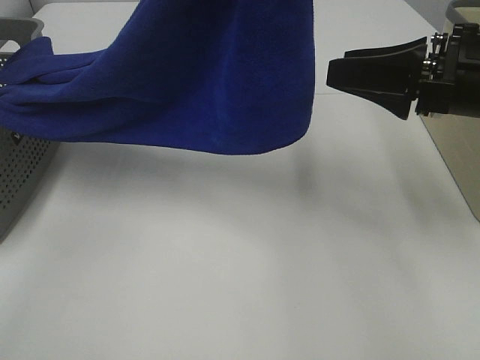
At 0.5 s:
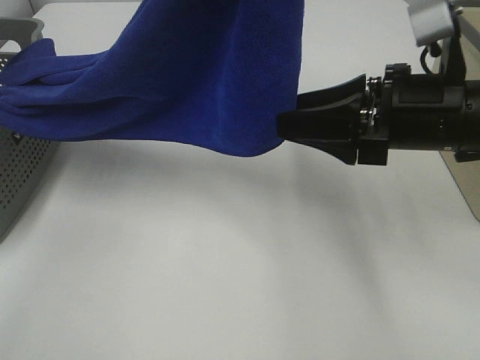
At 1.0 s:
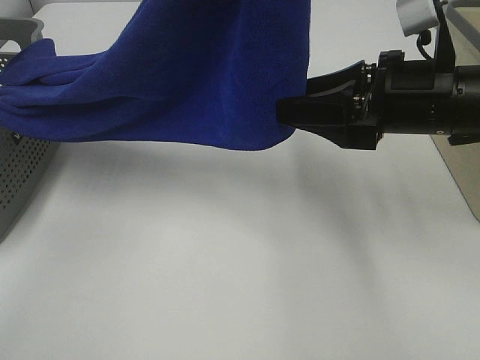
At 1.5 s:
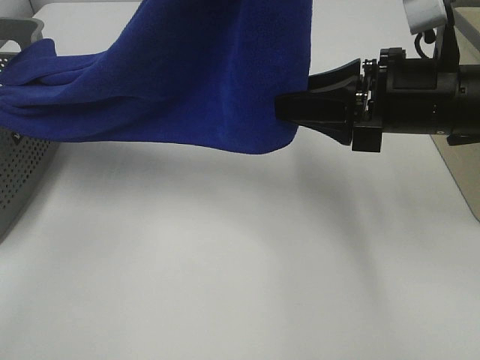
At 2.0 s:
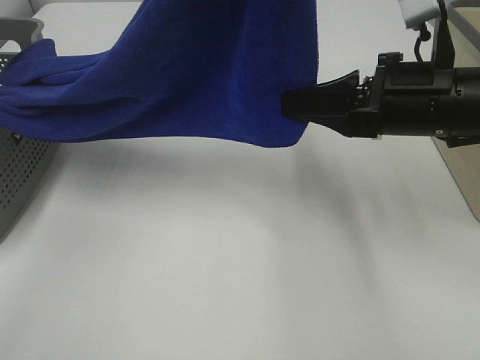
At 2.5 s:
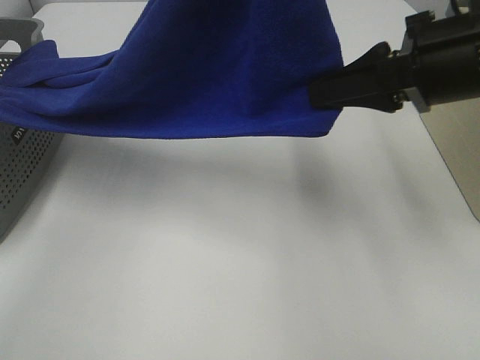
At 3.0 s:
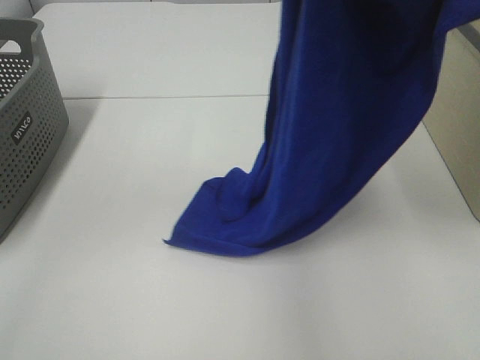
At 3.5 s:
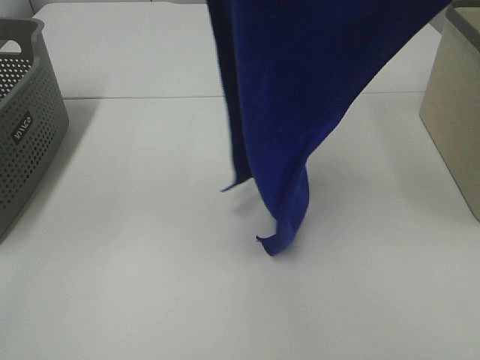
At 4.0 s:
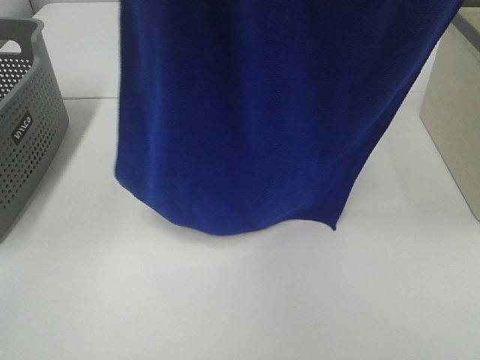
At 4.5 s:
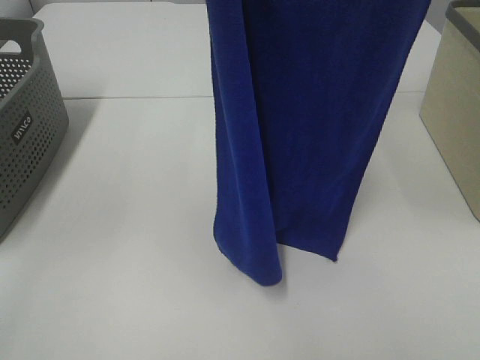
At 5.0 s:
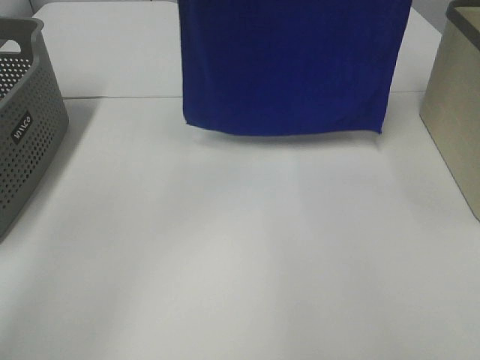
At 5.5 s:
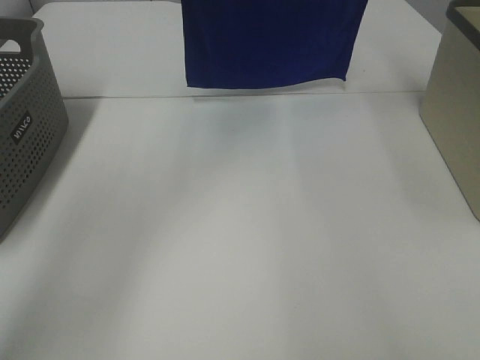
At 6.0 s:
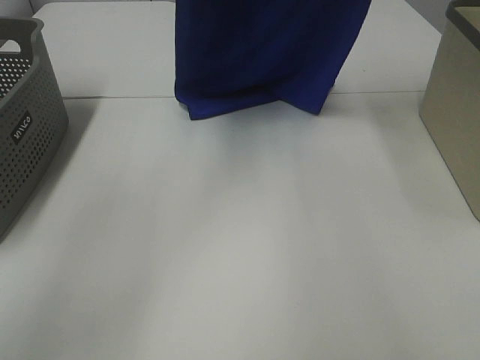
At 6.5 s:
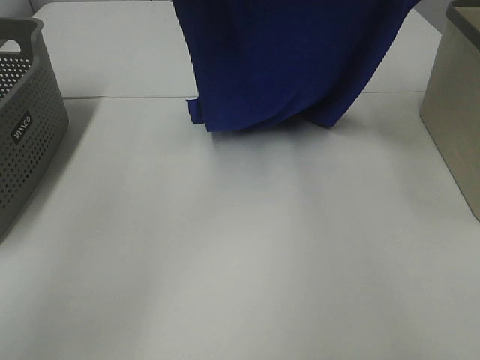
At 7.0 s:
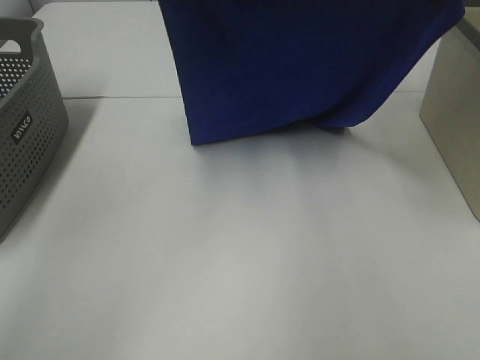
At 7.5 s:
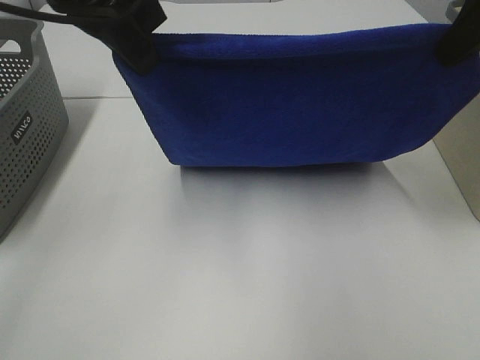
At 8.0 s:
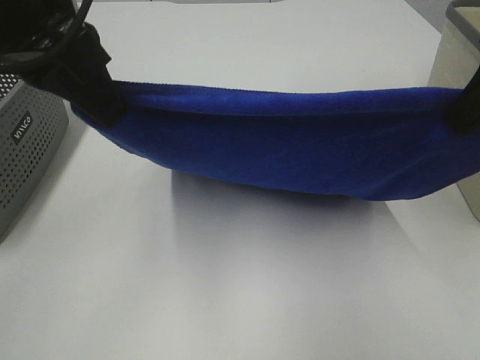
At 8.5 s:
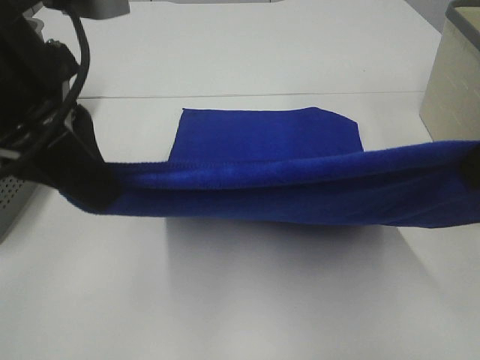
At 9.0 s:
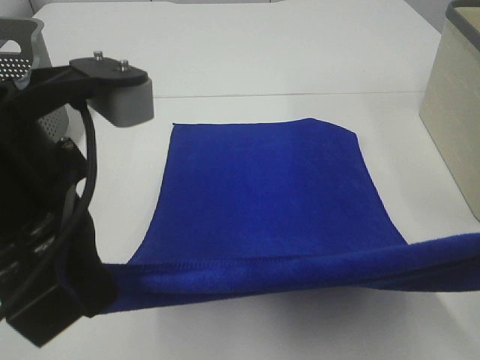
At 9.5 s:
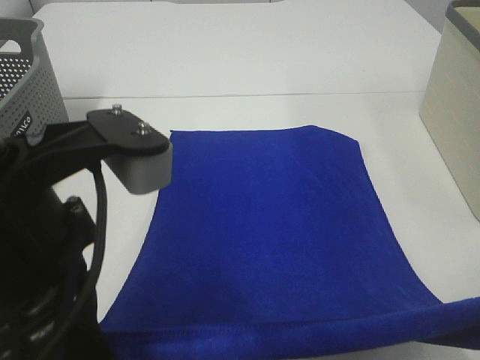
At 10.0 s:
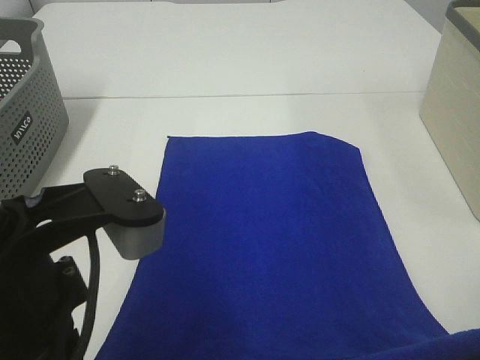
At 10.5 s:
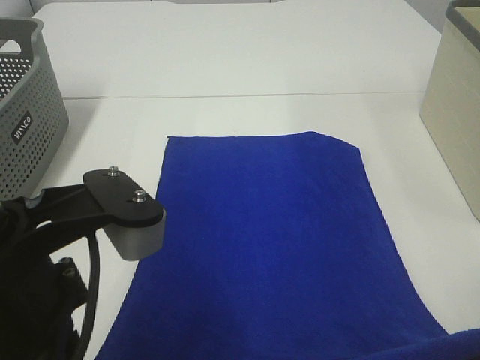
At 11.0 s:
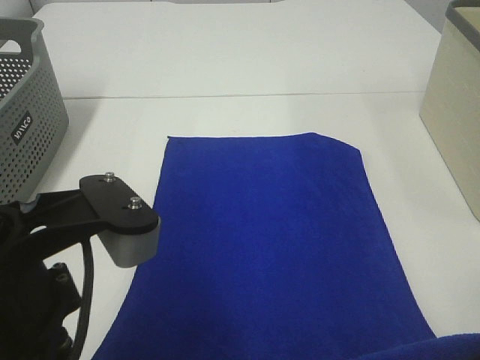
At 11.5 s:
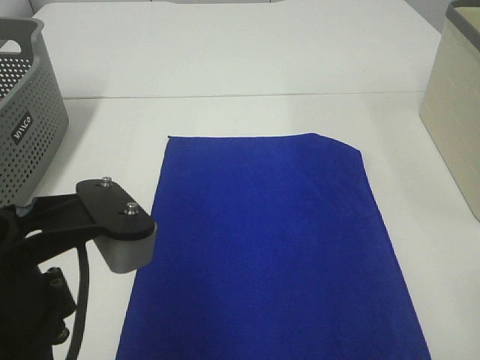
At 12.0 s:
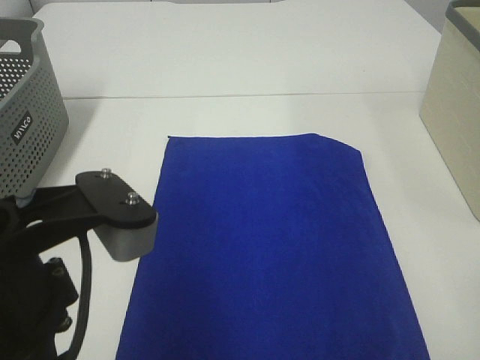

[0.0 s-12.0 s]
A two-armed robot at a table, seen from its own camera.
Task of the whole recording: Remove the towel and place it.
Step, 1.5 to 6.5 s: Left hand: spread the blue towel flat on the table.
Step, 1.5 to 6.5 s: Right hand: spread the blue towel flat on the table.
0.0 to 2.0 s: The right gripper closes its fingers.
2.0 to 4.0 s: The right gripper travels upward by some 35 cm; the left gripper travels upward and to the left by roughly 10 cm.
4.0 to 6.0 s: Both grippers move forward and downward, roughly 30 cm.
6.0 to 8.0 s: The grippers both shift backward by approximately 20 cm.
8.0 to 10.0 s: Both grippers travel together backward and downward, approximately 15 cm.
10.0 to 12.0 s: The right gripper opens its fingers. The left gripper opens up.

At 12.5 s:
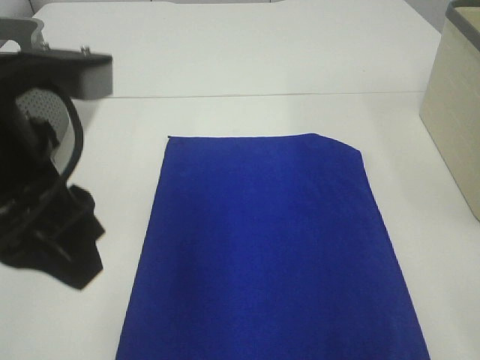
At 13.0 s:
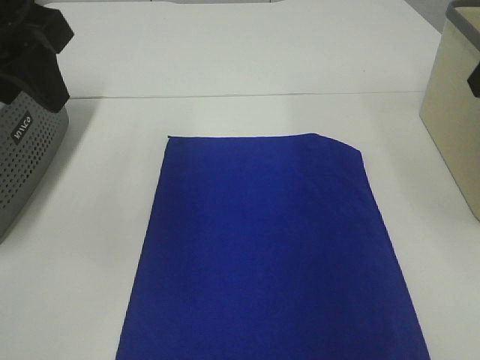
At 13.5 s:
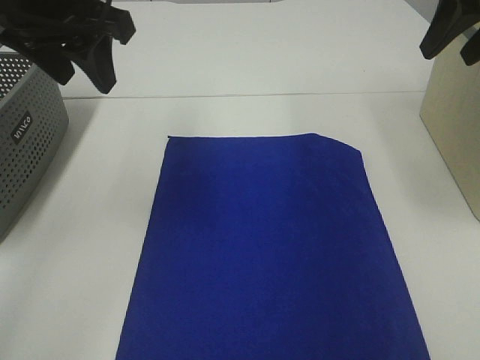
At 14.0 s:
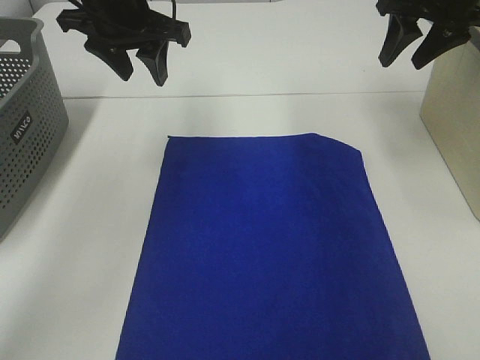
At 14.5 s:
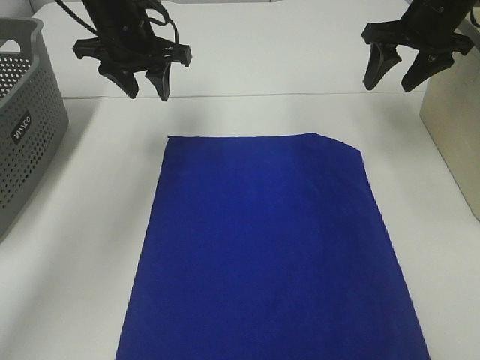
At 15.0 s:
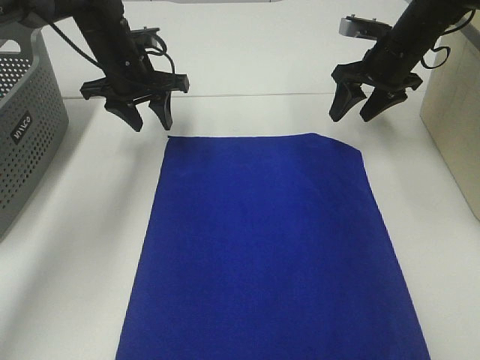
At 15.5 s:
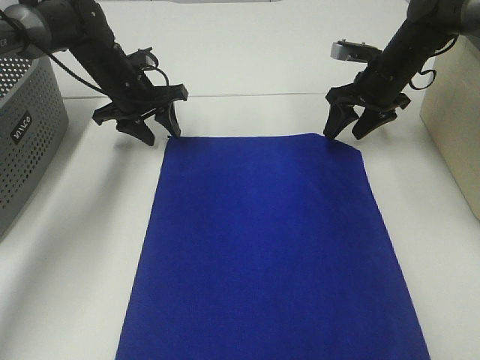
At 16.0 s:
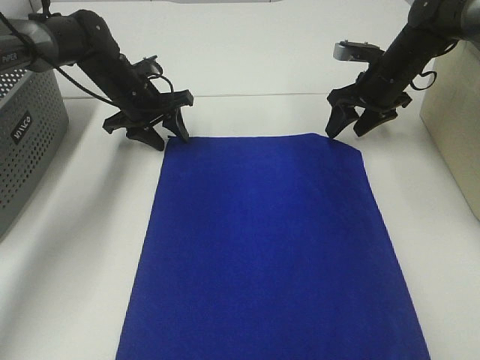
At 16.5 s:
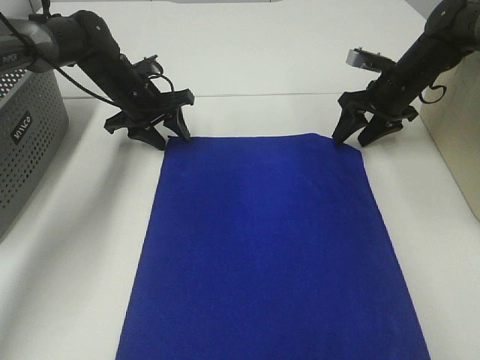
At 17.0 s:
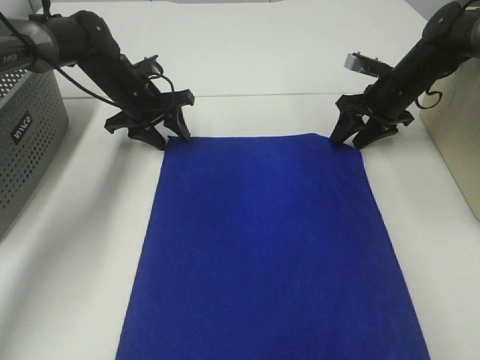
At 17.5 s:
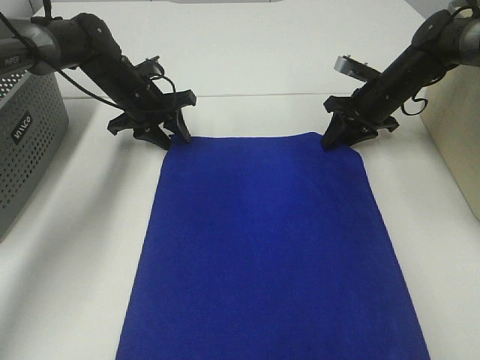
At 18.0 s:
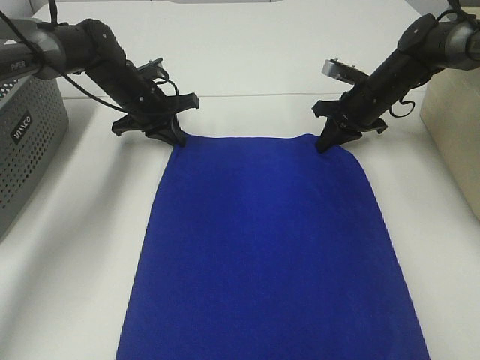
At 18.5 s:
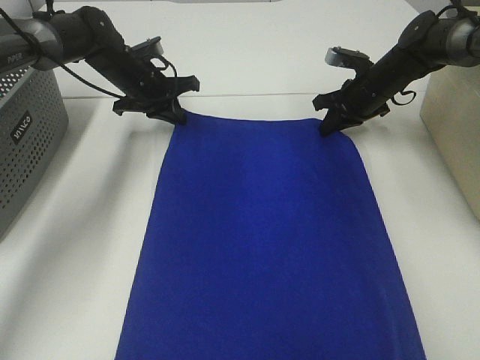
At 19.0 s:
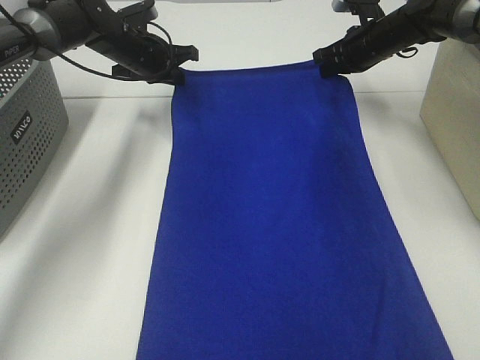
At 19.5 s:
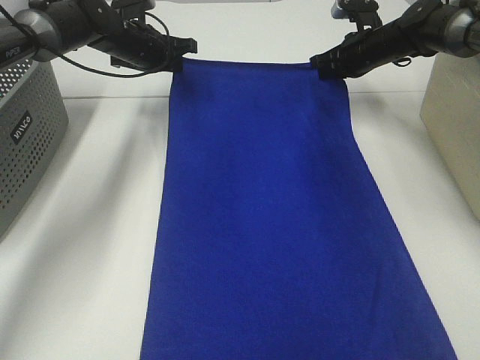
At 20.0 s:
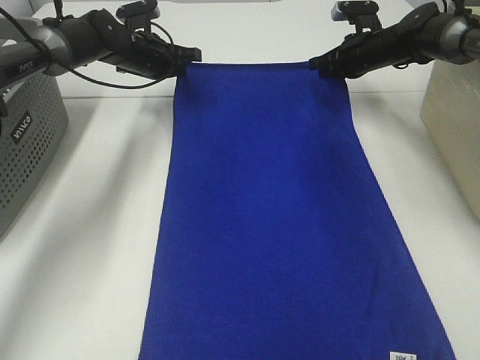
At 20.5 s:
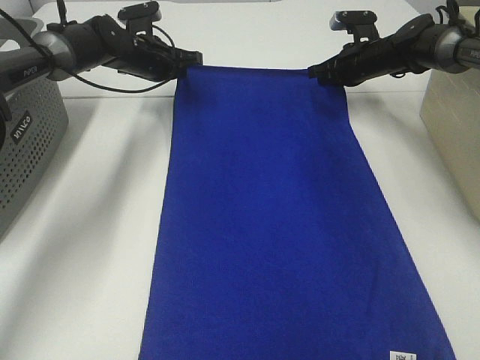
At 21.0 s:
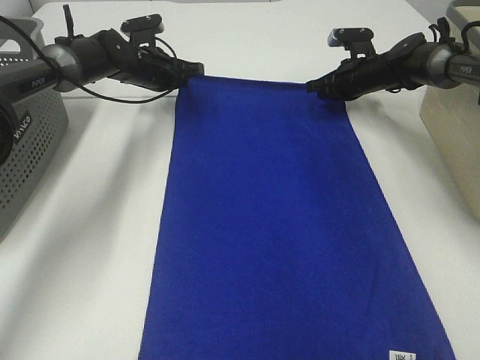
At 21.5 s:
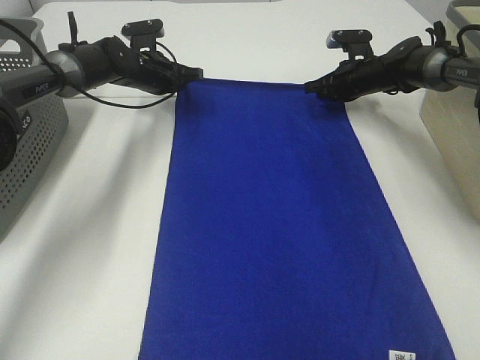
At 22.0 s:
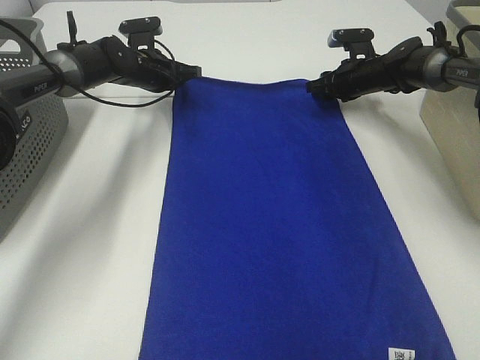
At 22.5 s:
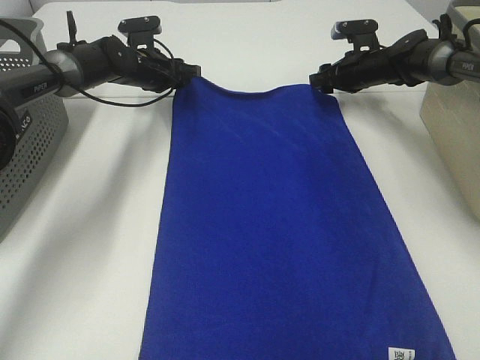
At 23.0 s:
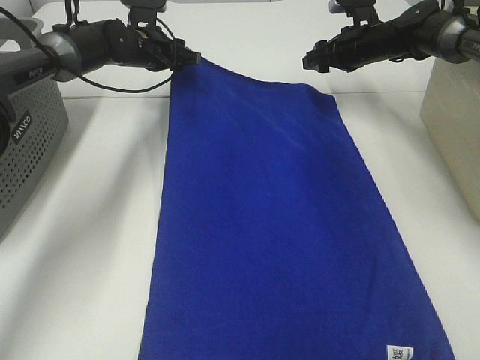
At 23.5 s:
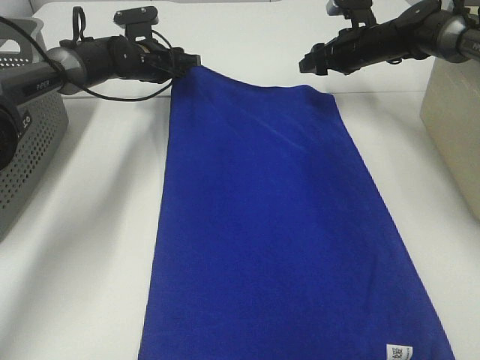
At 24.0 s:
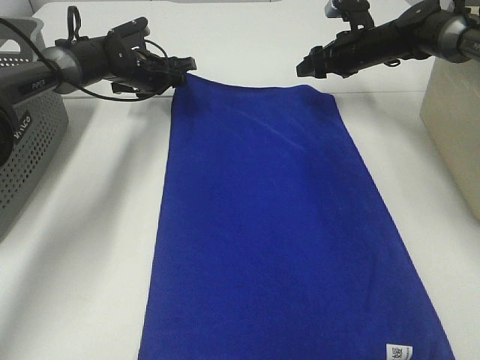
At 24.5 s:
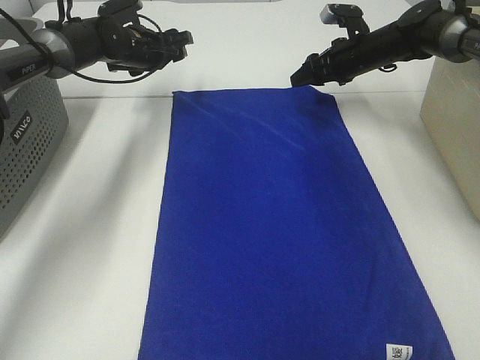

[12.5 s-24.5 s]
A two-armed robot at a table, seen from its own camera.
Task of the whole recording: Remove the towel and place it.
Step, 12.5 to 15.0 s: Right hand:adjust the blue towel.
Step, 12.5 to 17.0 s: Left hand:adjust the blue towel.
12.5 to 14.5 s: Both grippers travel together forward, roughly 30 cm.
14.5 to 16.5 s: The two grippers go approximately 15 cm downward.
16.5 to 18.5 s: The left gripper closes. The right gripper closes its fingers.
18.5 to 20.5 s: The right gripper heads forward, covering roughly 5 cm.
20.5 to 22.5 s: The right gripper opens its fingers; the left gripper opens up.

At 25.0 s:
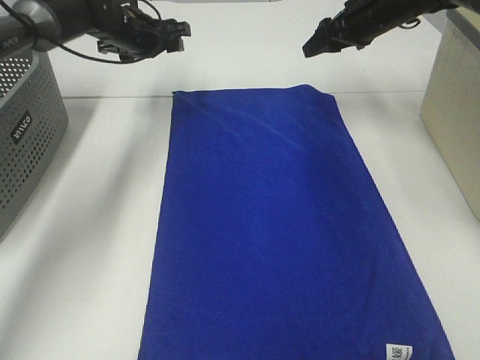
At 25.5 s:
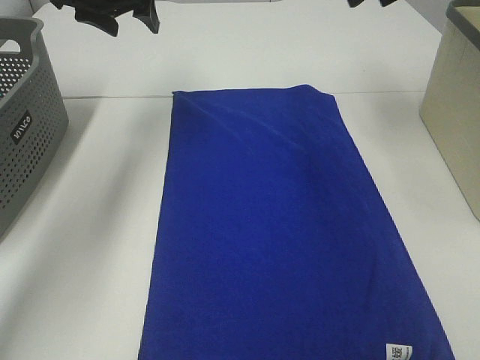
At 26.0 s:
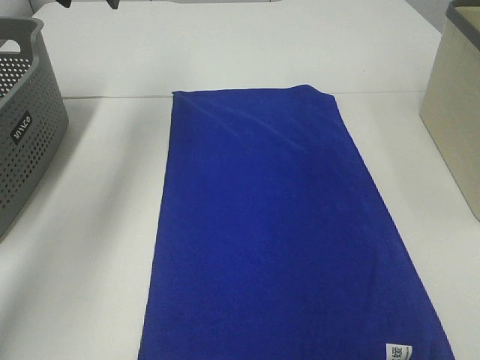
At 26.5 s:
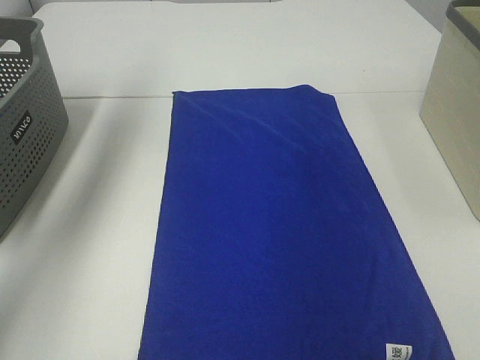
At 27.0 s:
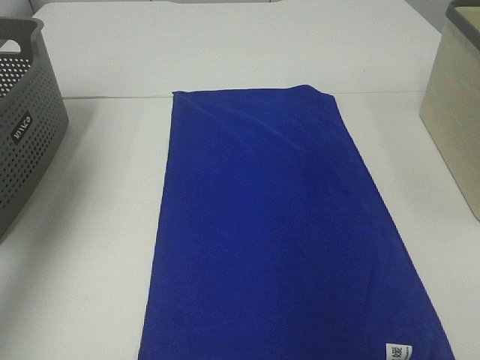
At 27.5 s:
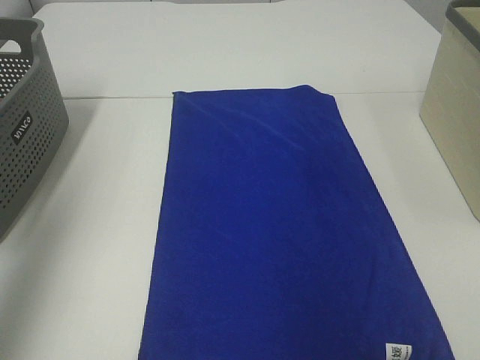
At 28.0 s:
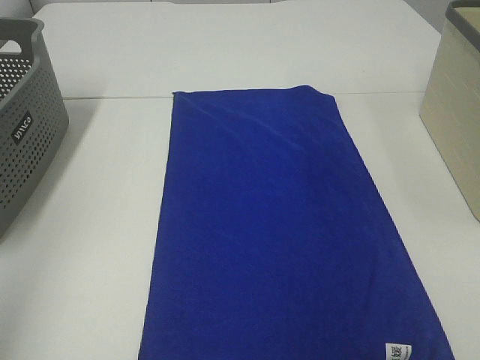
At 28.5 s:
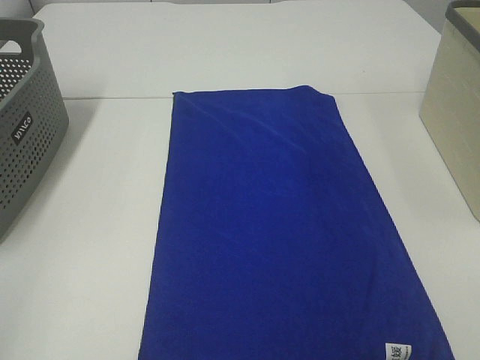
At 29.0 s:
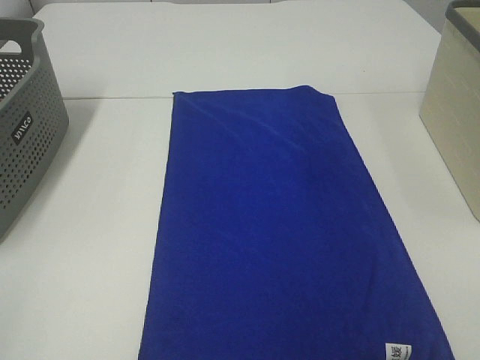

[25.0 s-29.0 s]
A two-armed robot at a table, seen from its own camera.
Task of the whole recording: Remove the towel and place it.
25.0 to 27.0 s: The right gripper shifts roughly 40 cm backward and upward, while the left gripper goes roughly 35 cm upward, backward and to the left.
27.0 to 29.0 s: The left gripper moves backward, approximately 35 cm.
